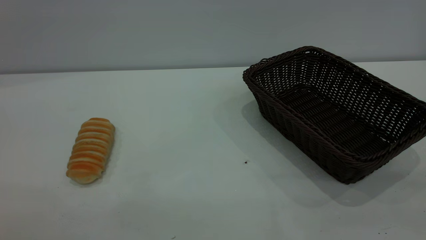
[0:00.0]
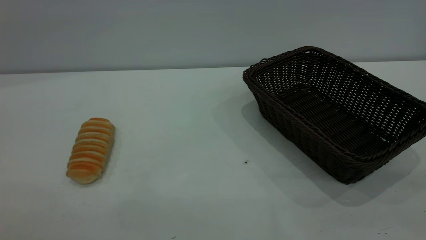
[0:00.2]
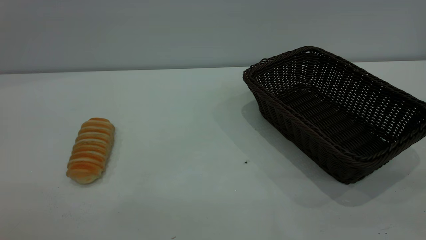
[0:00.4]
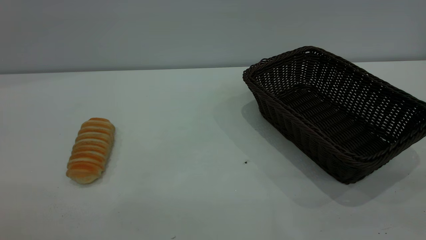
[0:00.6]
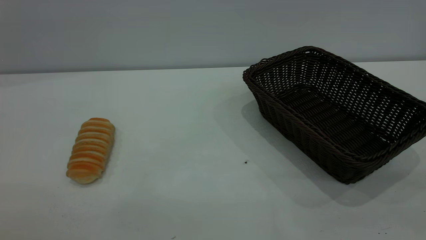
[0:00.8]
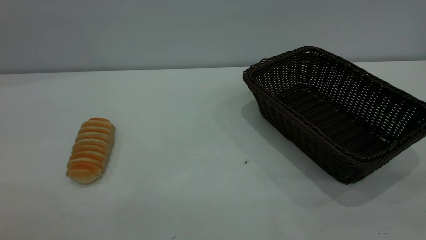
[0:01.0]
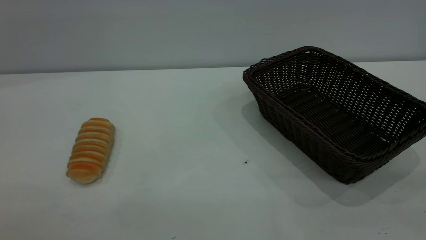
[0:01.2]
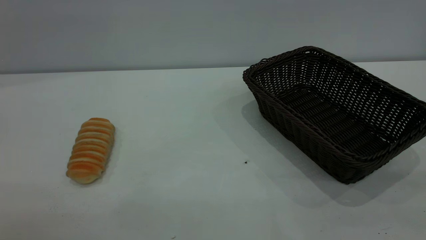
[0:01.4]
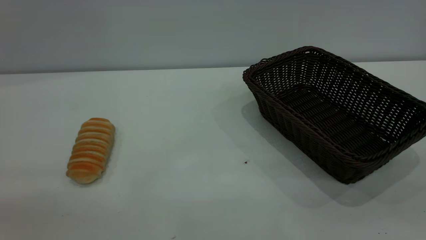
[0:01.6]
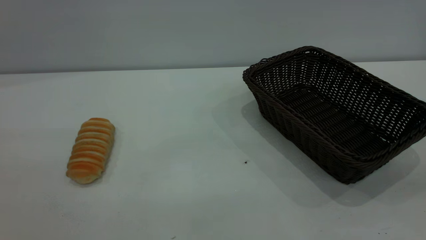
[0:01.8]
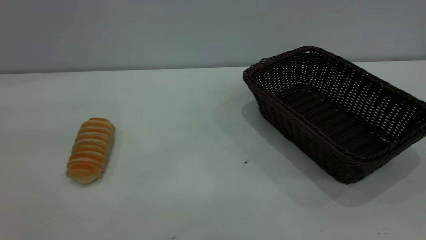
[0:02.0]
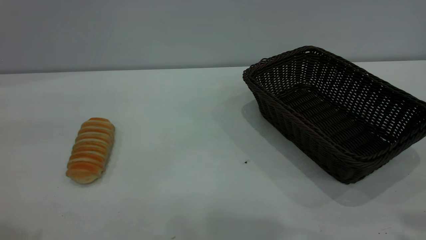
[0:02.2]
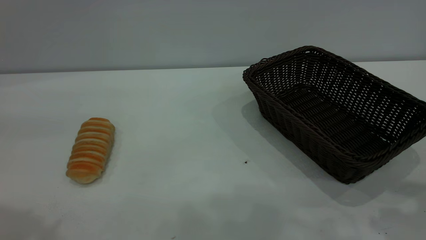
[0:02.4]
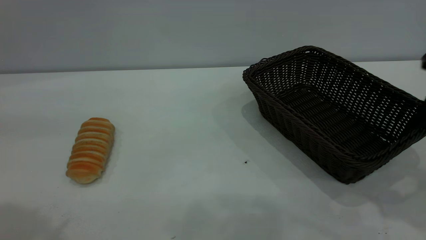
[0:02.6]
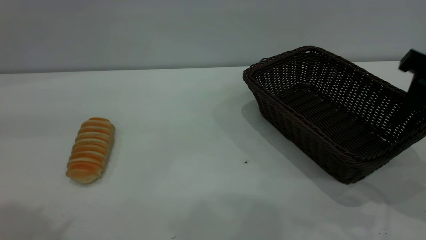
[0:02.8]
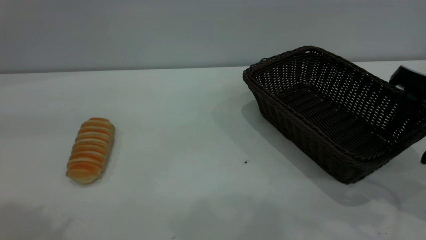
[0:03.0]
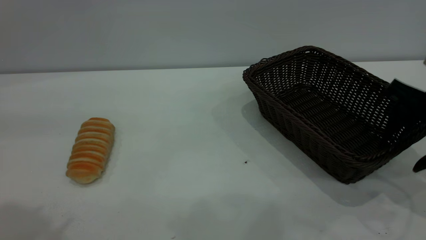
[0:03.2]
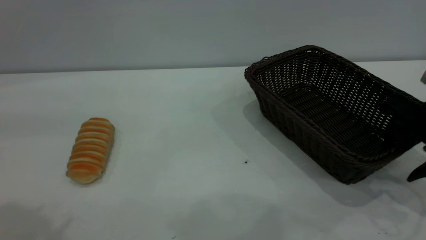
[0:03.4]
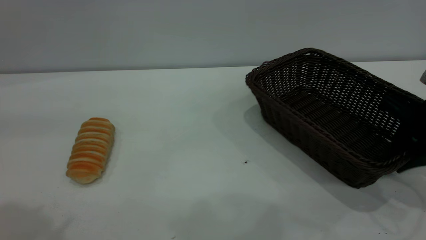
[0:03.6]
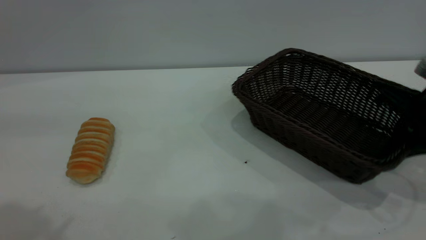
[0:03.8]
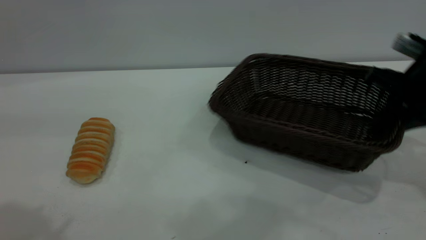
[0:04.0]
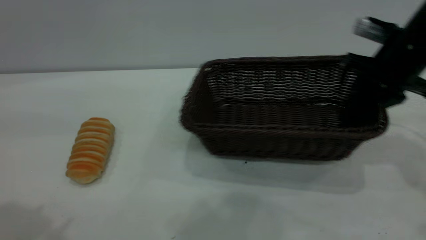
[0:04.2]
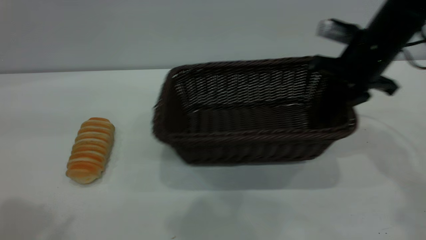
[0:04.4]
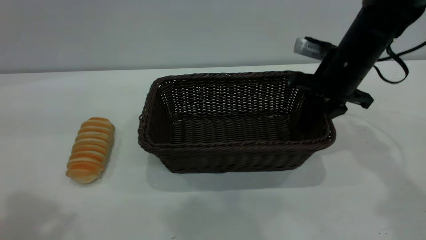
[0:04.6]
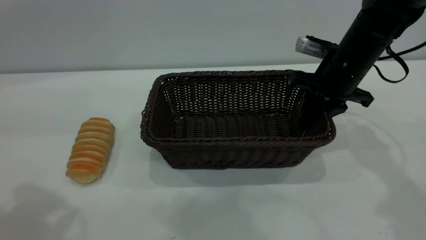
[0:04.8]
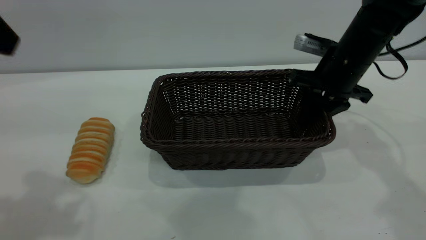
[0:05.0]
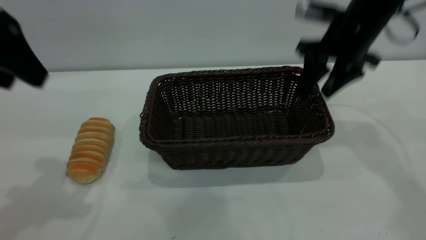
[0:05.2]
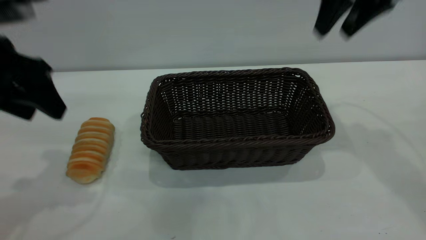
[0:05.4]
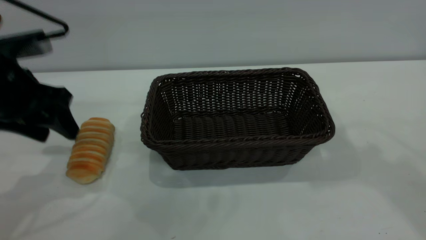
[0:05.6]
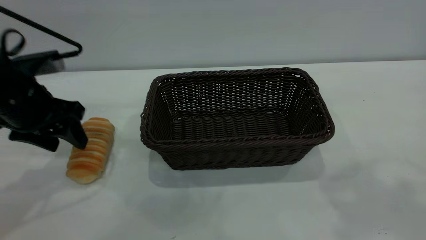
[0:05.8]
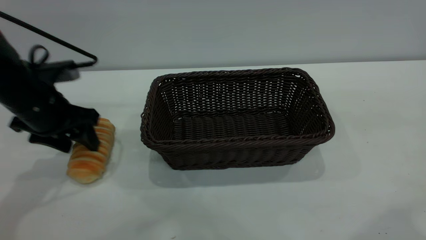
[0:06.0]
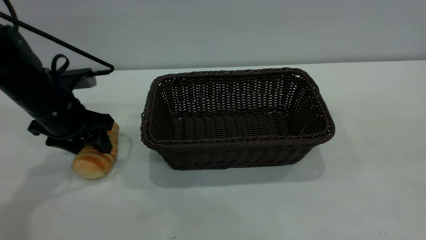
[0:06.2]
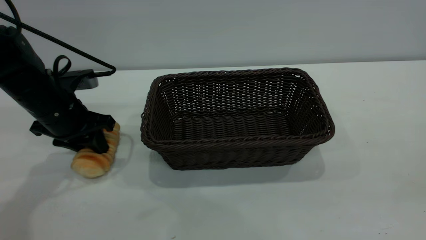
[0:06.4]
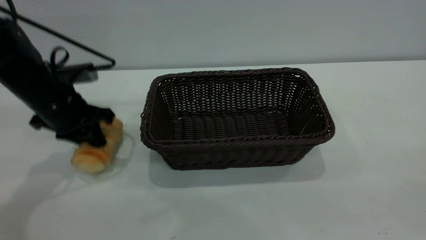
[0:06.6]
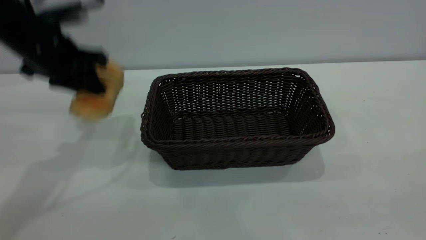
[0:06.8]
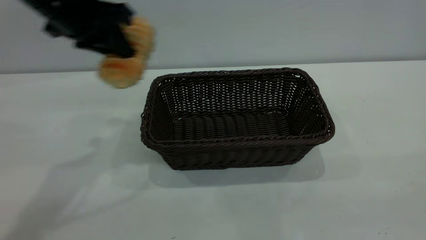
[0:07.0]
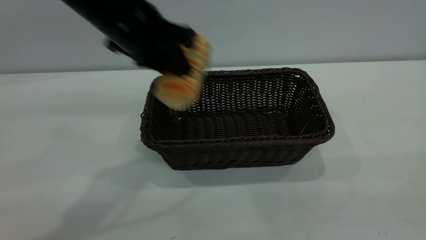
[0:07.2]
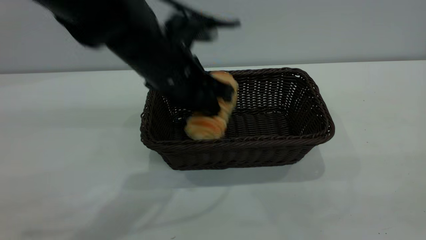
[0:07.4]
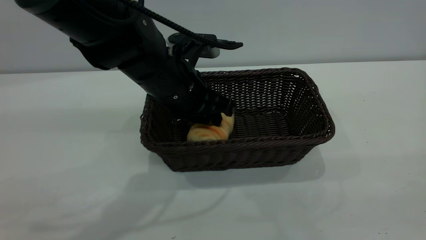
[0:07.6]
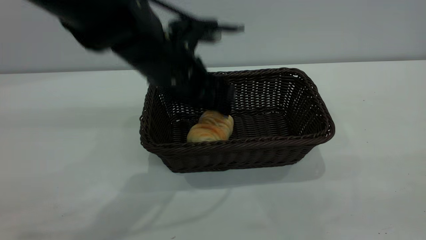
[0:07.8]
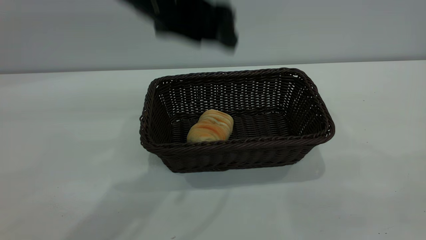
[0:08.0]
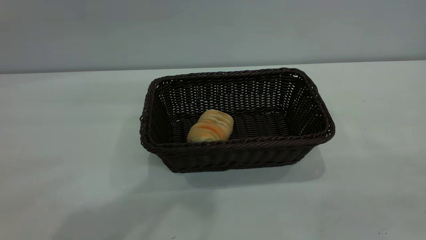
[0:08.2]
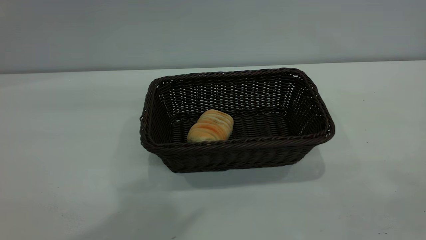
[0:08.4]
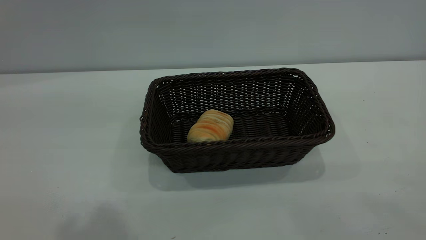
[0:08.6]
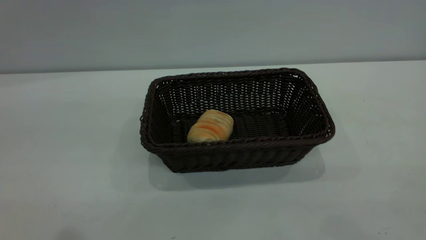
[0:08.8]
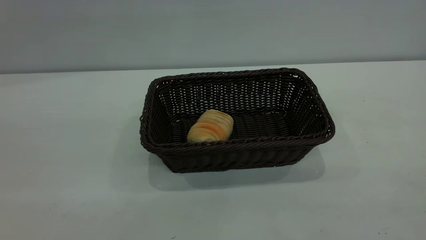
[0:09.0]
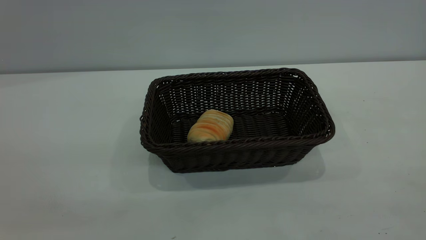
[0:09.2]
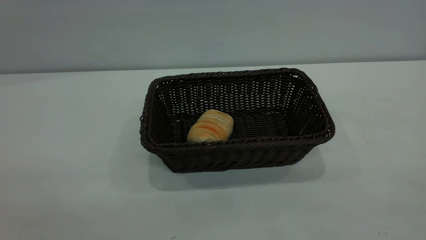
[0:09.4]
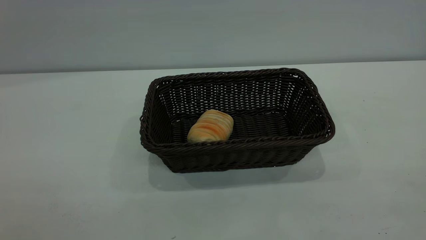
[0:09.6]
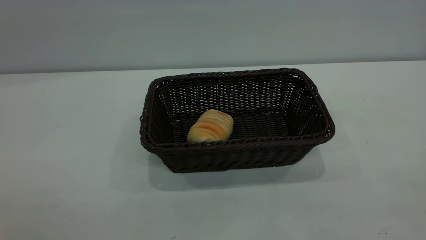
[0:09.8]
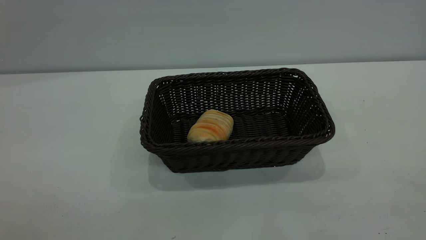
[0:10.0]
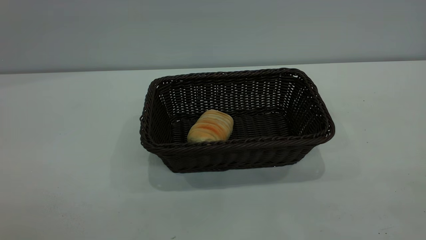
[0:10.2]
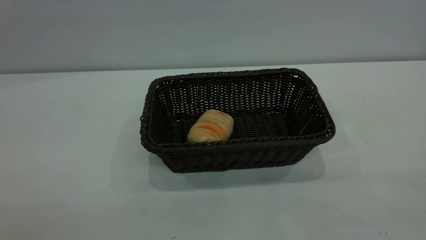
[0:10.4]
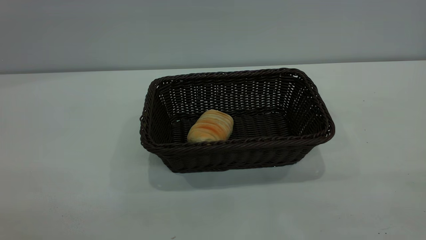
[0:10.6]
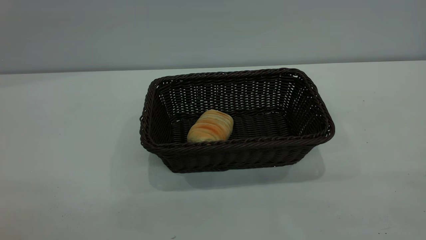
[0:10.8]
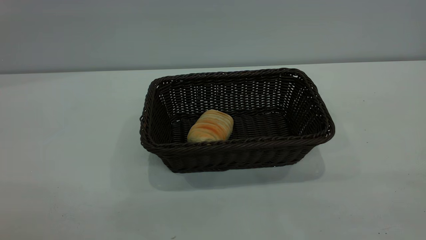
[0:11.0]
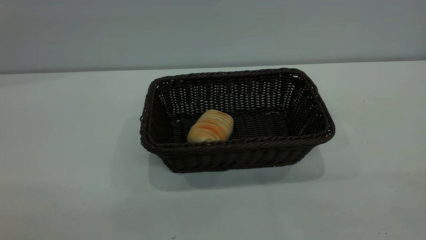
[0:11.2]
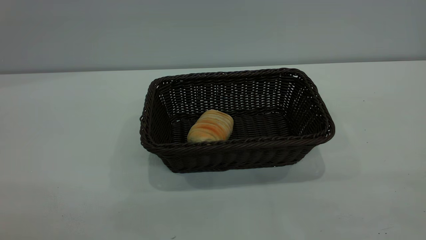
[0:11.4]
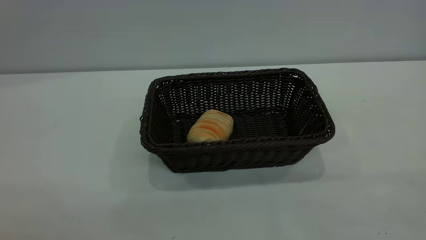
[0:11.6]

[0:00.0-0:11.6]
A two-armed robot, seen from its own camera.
Task of the whole recording: One hand grasps the black basket and places it in the middle of the table, while the other hand picks up the long bread and puts it into the black basket.
Step, 0:00.0 to 0:05.2: Move the basket to the center of view.
Step, 0:07.0 to 0:07.8: place the bread into the basket.
0:00.0 to 0:01.4: Both grippers stay put.
0:01.4 to 0:02.8: The right gripper is displaced forward and downward by approximately 30 cm, and opens its fingers.
0:02.8 to 0:04.4: The right gripper moves forward and to the left, about 15 cm, and closes.
0:04.4 to 0:05.8: The left gripper is displaced downward and forward by approximately 30 cm; the right gripper travels upward and backward by some 30 cm, and opens up.
0:05.8 to 0:07.2: The right gripper is displaced backward and downward by about 25 cm; the left gripper goes roughly 20 cm to the right and upward, and closes its fingers.
0:07.2 to 0:08.8: The left gripper is displaced backward and upward by some 30 cm, and opens its fingers.
